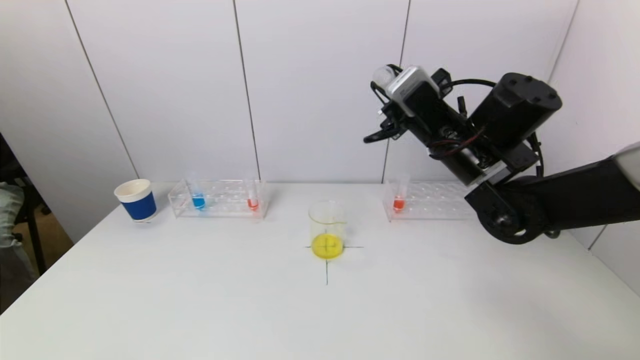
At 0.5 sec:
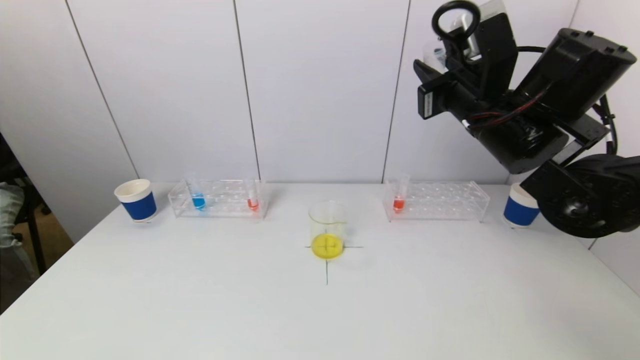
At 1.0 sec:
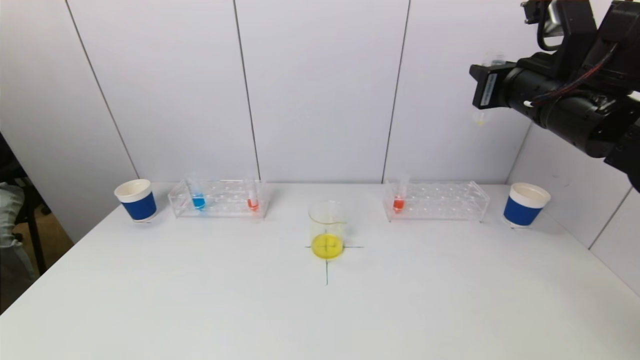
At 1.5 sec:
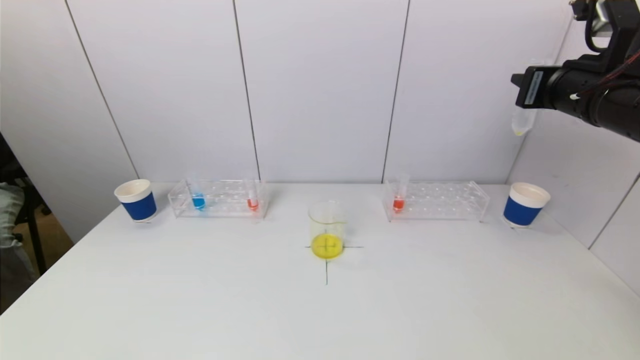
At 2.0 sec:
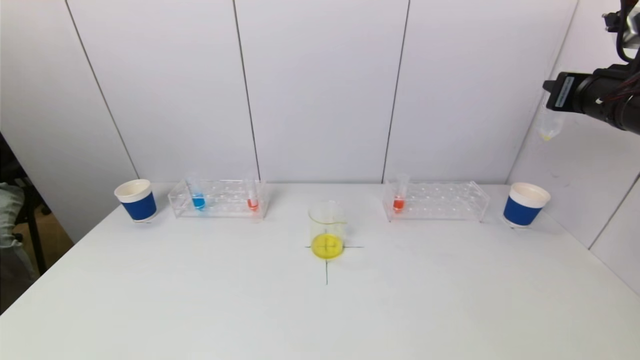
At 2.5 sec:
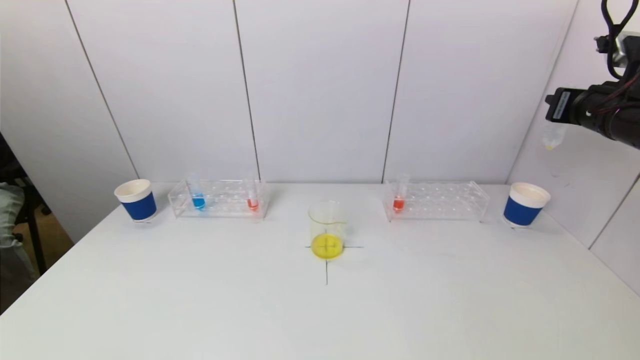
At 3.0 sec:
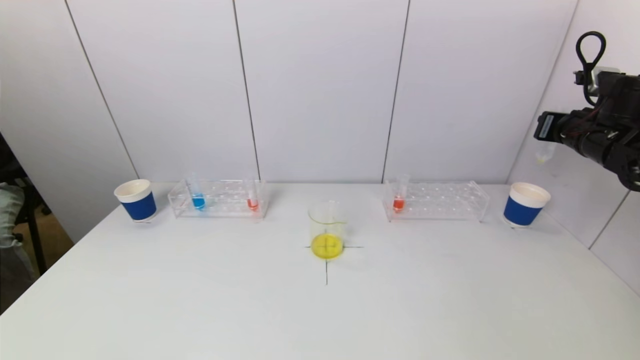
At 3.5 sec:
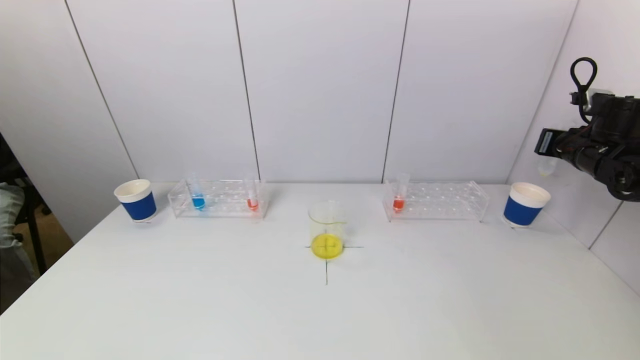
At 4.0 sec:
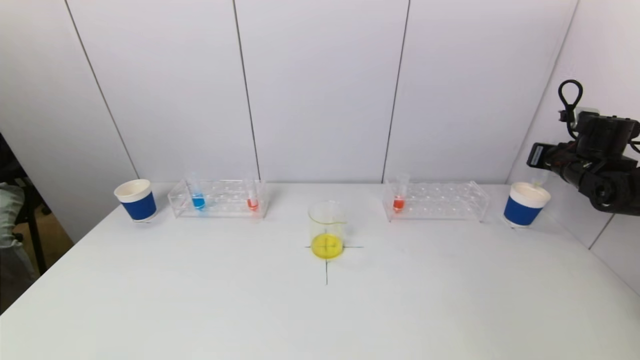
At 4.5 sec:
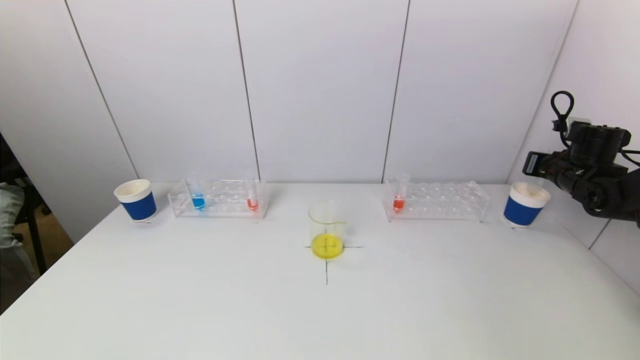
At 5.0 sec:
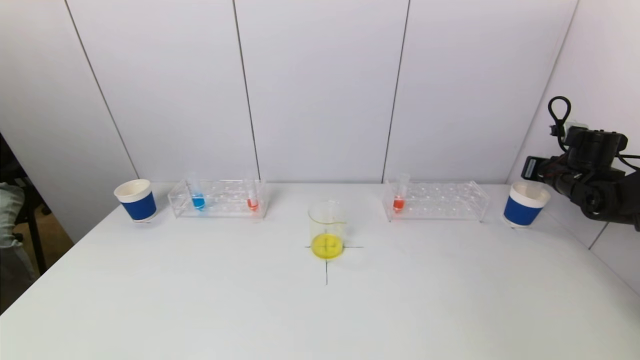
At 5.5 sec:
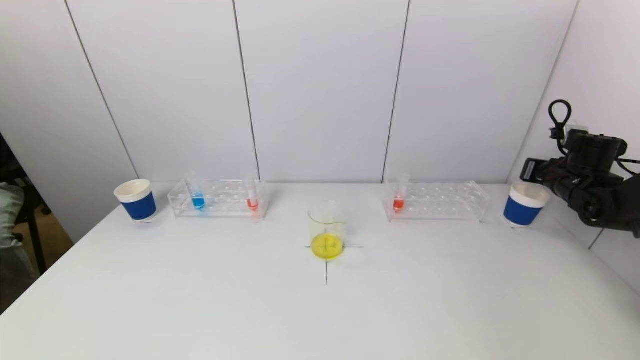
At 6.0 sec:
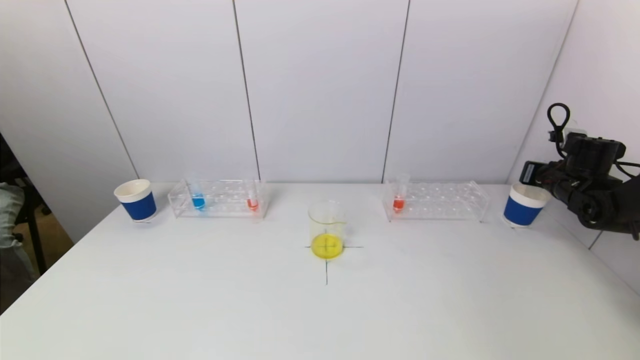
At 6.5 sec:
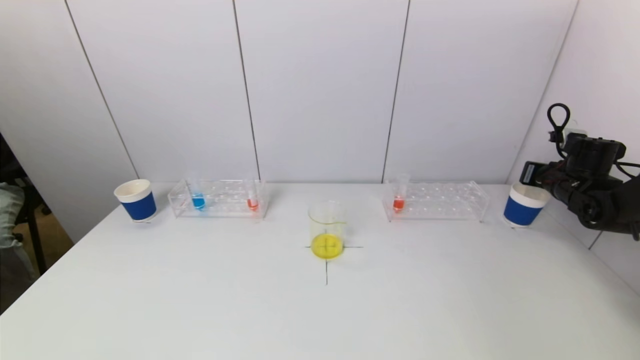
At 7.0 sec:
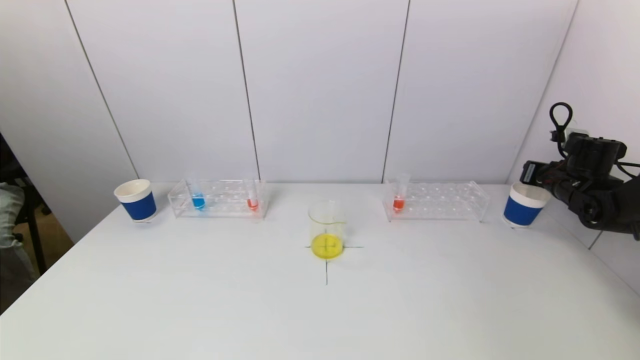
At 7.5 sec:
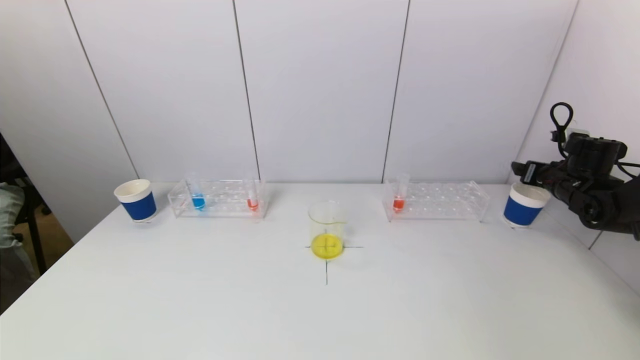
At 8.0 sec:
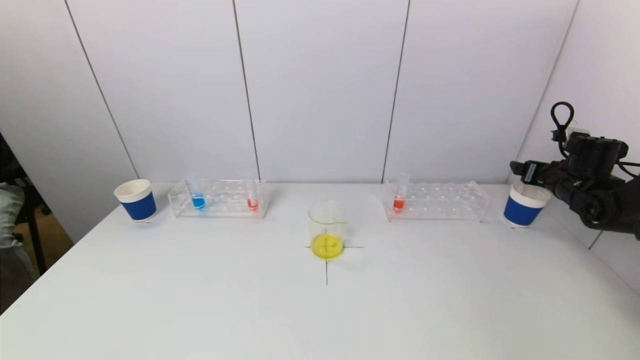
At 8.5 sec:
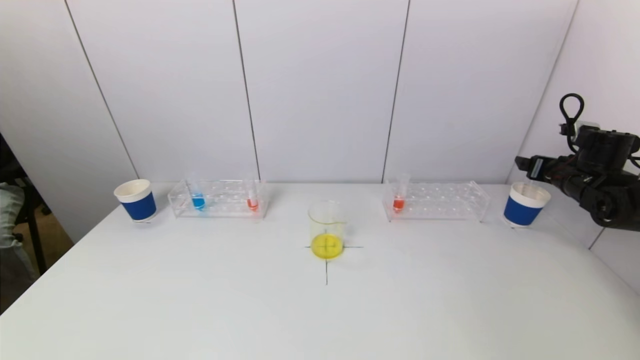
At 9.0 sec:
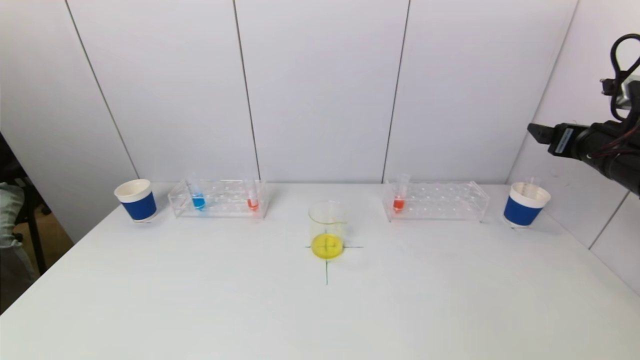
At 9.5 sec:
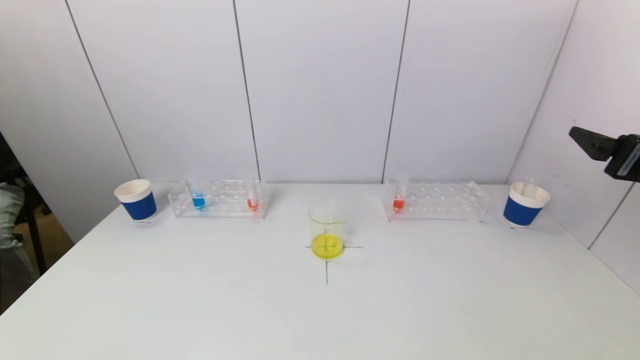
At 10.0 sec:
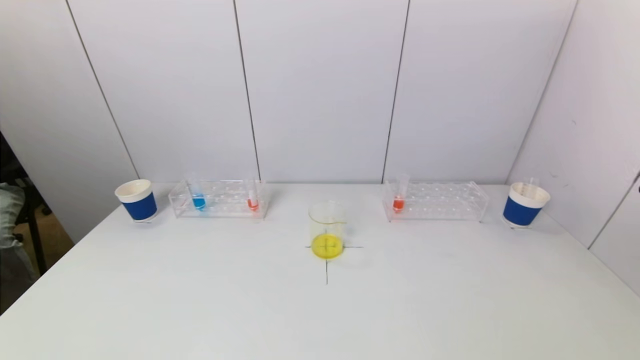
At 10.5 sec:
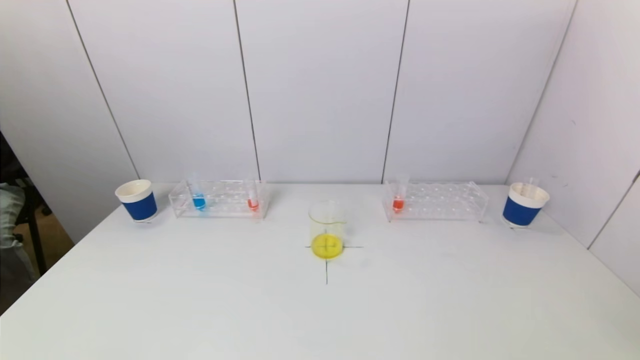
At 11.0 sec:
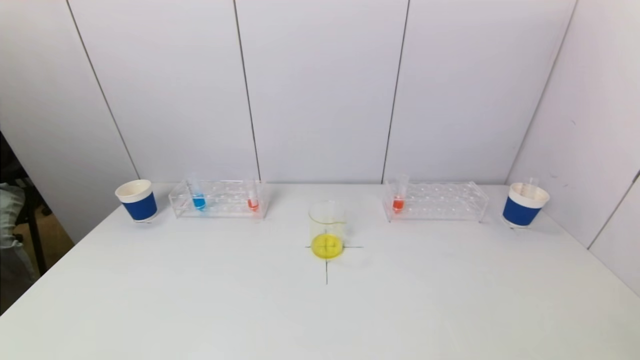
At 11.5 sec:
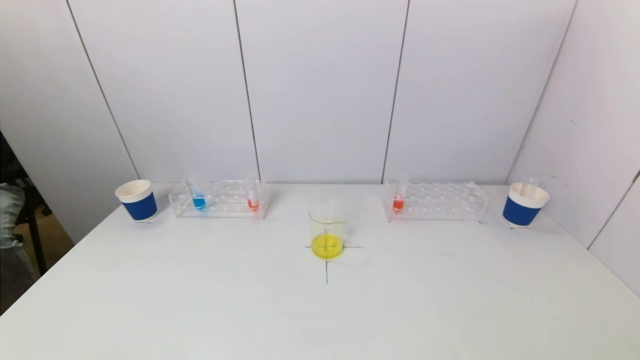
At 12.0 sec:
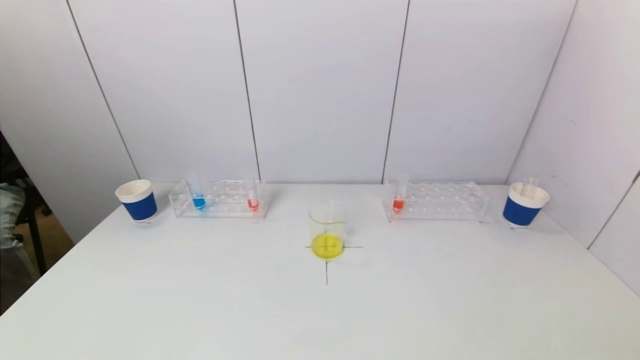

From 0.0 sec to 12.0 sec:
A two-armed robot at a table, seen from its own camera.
Task of the whole recording: pick up a test tube with pigment on left test tube rack and a test tube with pigment on right test tube rack by grippers and pour them into the beaker.
Step, from 0.0 sec to 7.5 sec: Place the test tube into the paper cup with the right gripper.
From 0.0 sec to 2.0 sec: The right gripper moves to the right, roughly 20 cm.
From 2.0 sec to 4.0 sec: The right gripper moves downward, forward and to the right, roughly 20 cm.
From 4.0 sec to 6.0 sec: The grippers move only a little.
From 6.0 sec to 8.0 sec: The right gripper opens.
From 8.0 sec to 10.0 sec: The right gripper is displaced backward by roughly 35 cm.

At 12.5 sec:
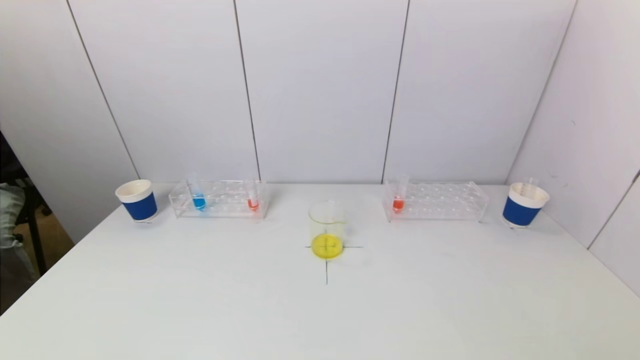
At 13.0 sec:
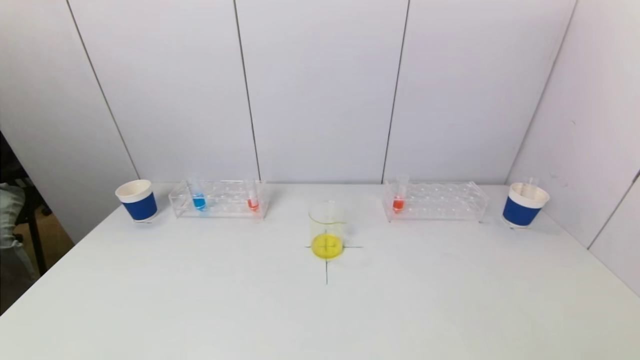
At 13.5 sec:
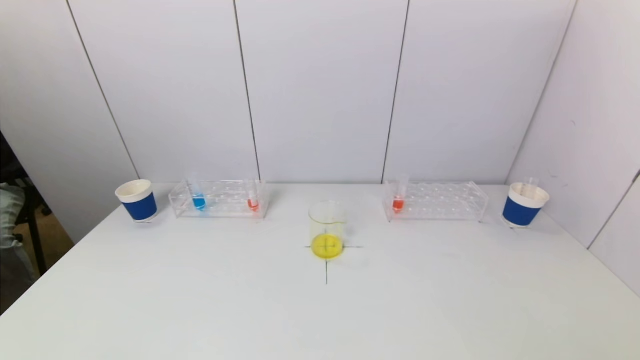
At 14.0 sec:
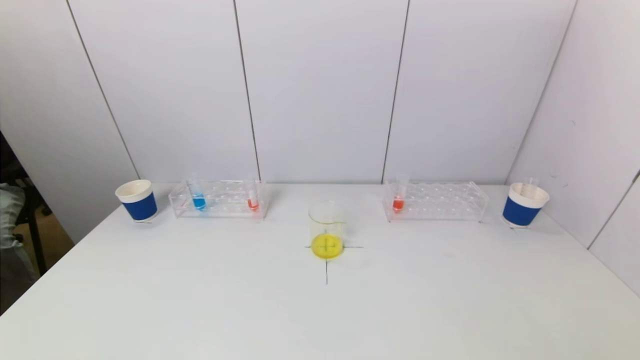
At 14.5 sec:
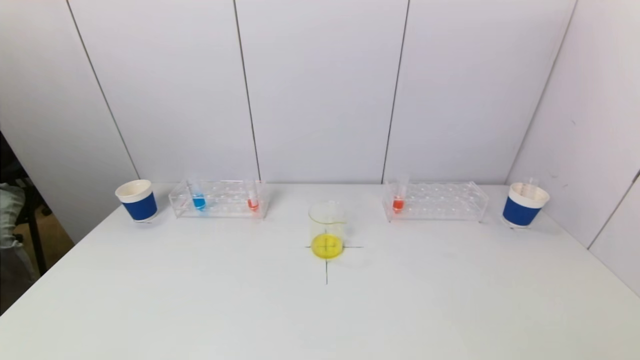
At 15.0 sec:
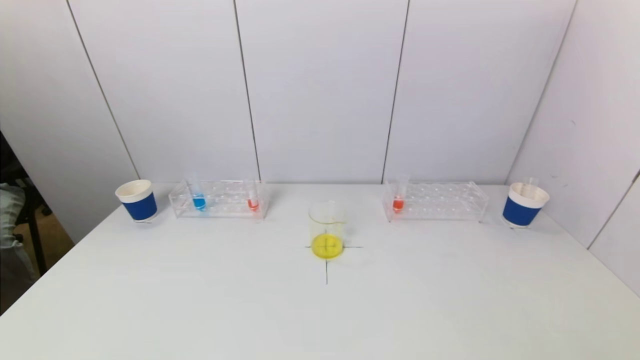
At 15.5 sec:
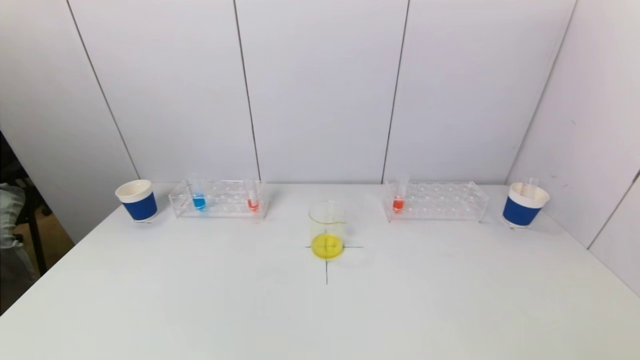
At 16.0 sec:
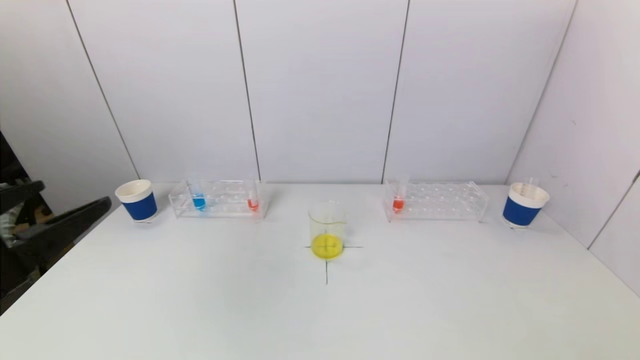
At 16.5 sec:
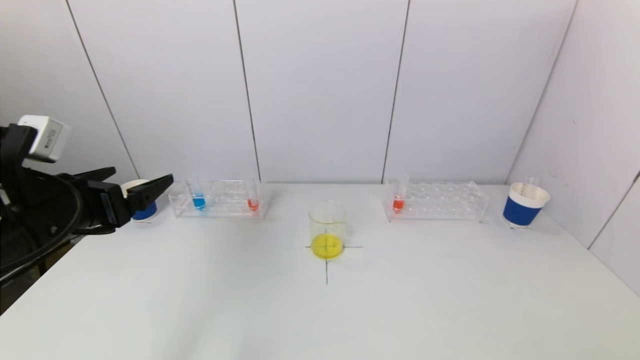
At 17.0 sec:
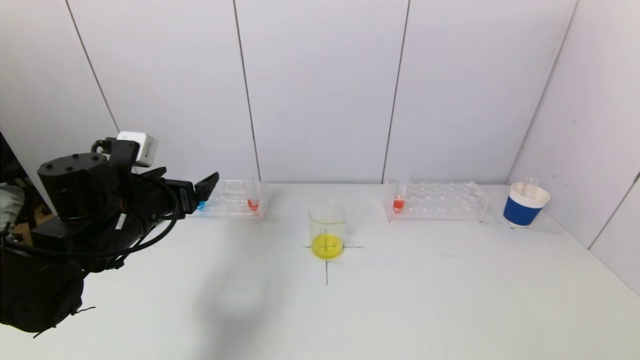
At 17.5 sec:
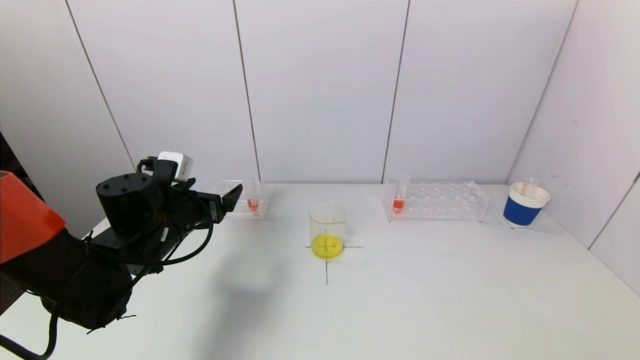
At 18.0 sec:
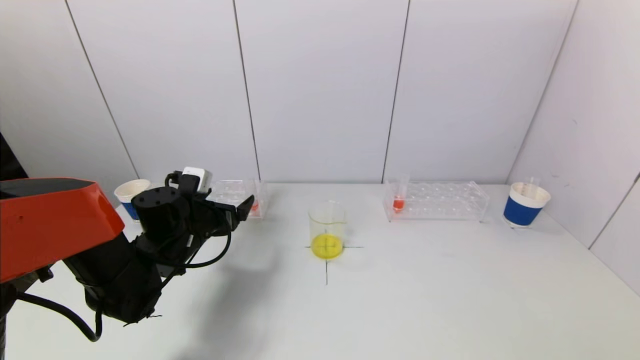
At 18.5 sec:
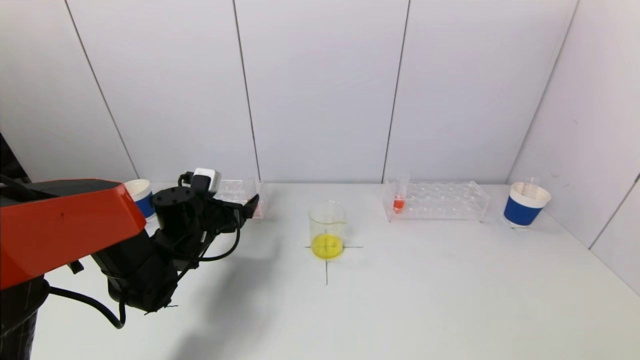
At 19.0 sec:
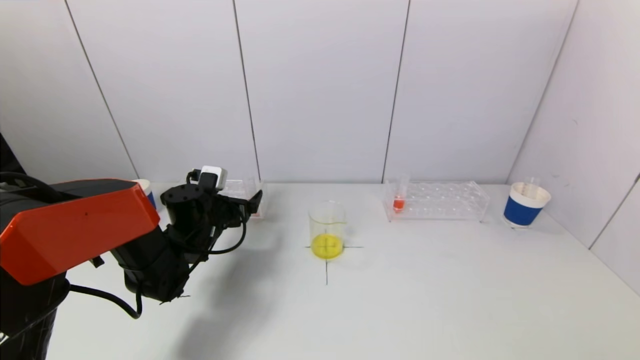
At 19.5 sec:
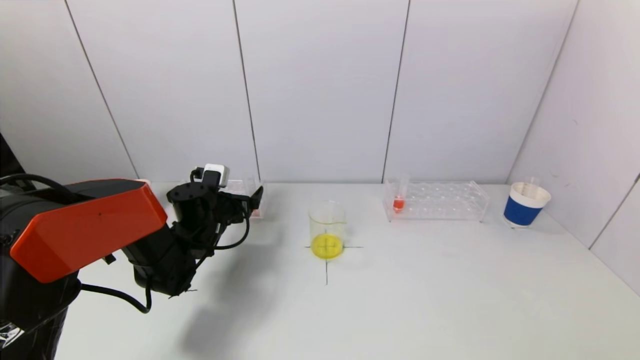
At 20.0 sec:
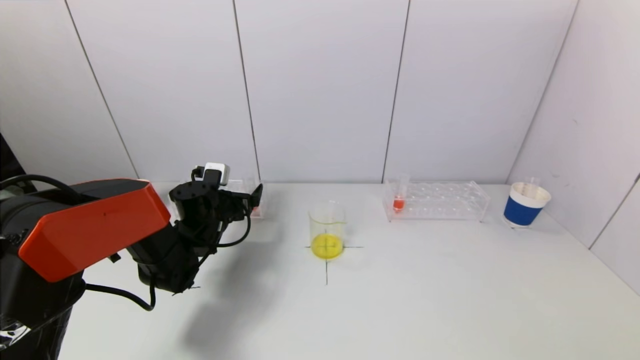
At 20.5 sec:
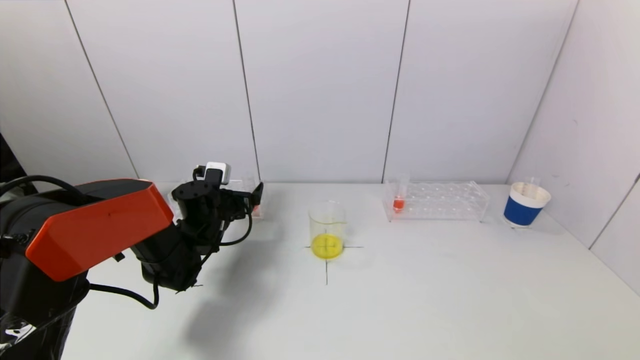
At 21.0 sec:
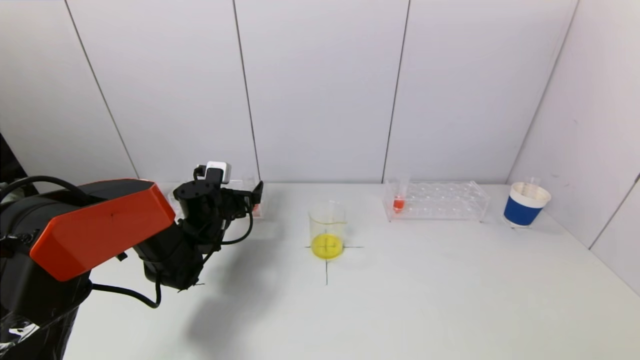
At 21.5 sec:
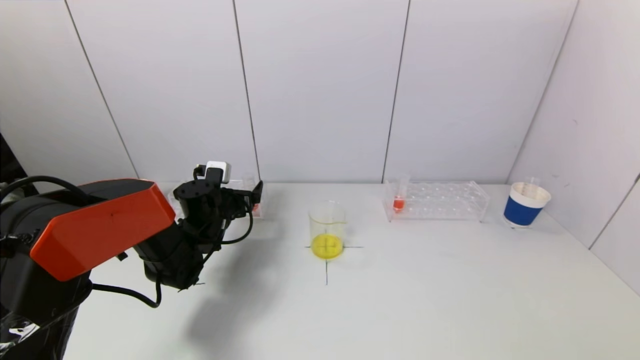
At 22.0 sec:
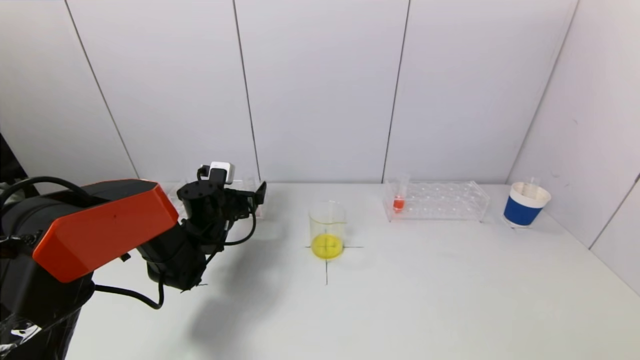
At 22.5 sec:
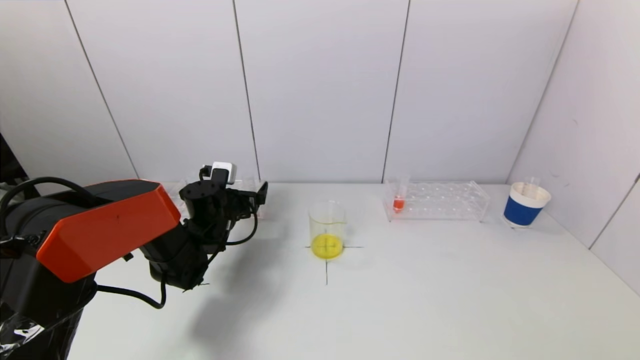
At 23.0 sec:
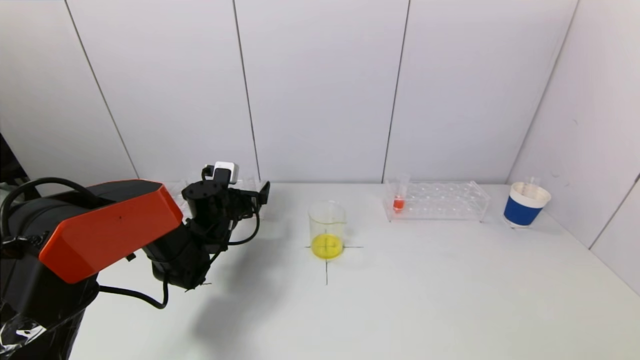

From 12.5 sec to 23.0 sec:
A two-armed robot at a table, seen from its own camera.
Task of the whole recording: pick up a test tube with pigment on left test tube rack and a test tube with pigment on right test tube rack by grippers and pour them into the beaker.
From 14.5 sec to 16.5 sec: The left gripper moves forward and upward, roughly 25 cm.
From 16.5 sec to 19.0 sec: The left gripper is displaced forward, downward and to the right by some 25 cm.
From 19.0 sec to 21.0 sec: The grippers make only small movements.
From 21.0 sec to 23.0 sec: Both grippers stay about where they are.
